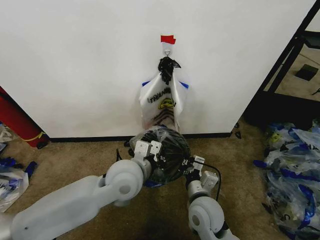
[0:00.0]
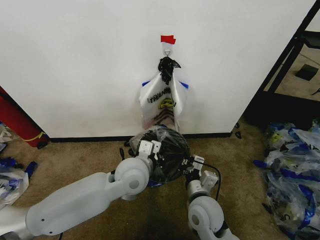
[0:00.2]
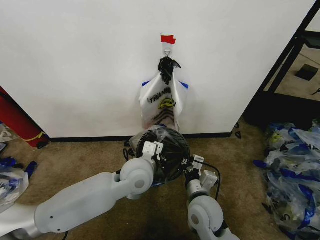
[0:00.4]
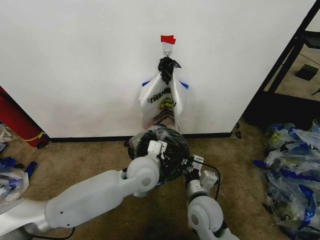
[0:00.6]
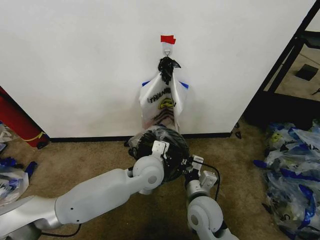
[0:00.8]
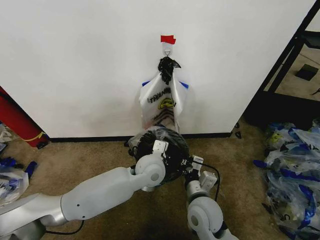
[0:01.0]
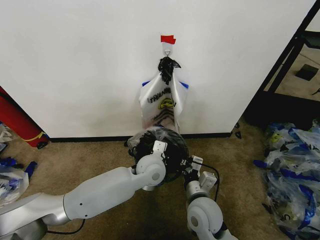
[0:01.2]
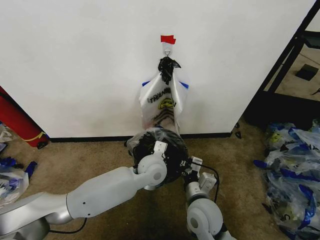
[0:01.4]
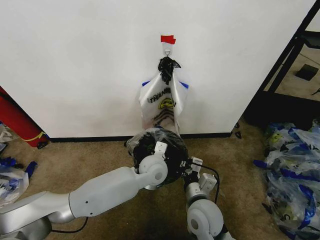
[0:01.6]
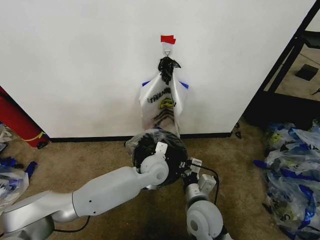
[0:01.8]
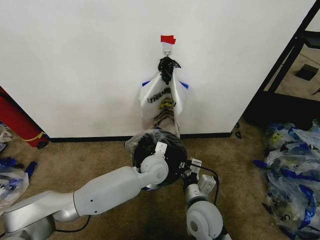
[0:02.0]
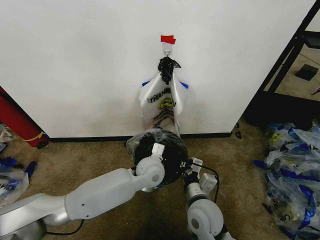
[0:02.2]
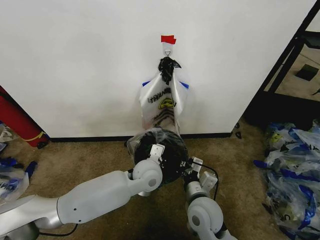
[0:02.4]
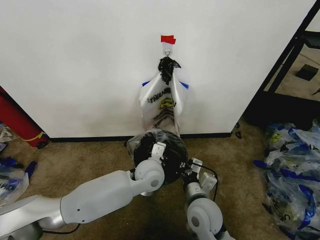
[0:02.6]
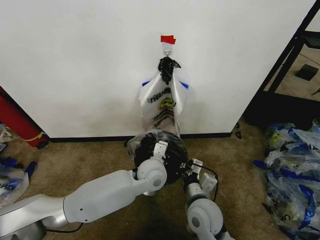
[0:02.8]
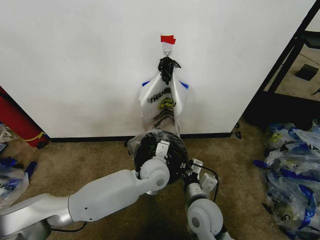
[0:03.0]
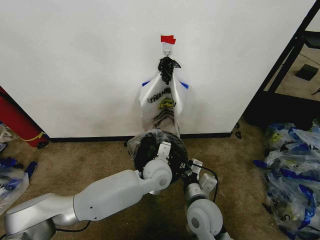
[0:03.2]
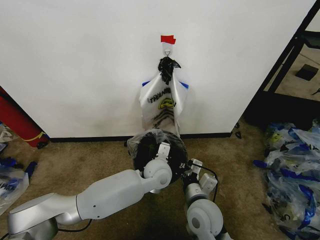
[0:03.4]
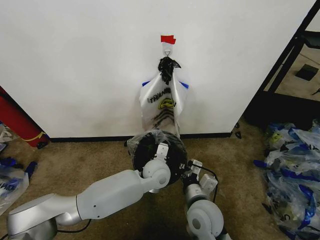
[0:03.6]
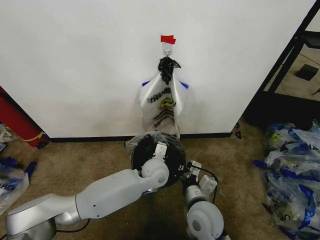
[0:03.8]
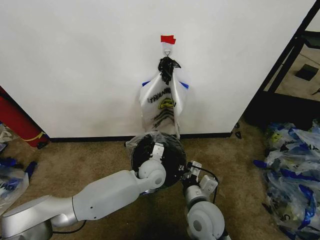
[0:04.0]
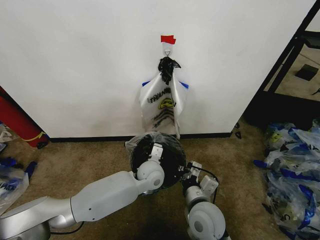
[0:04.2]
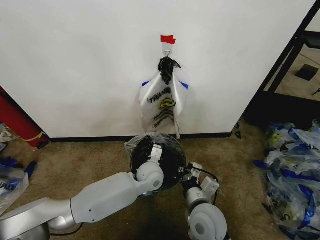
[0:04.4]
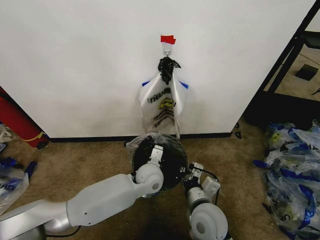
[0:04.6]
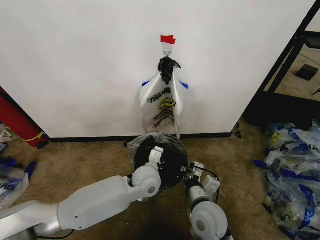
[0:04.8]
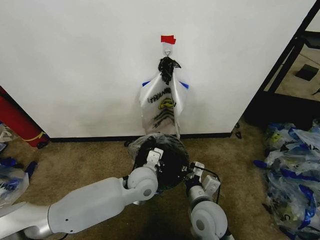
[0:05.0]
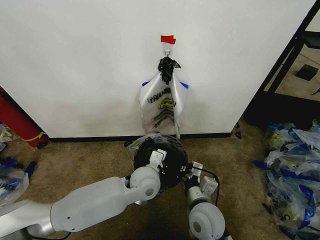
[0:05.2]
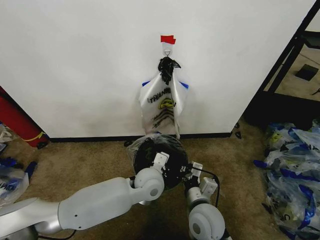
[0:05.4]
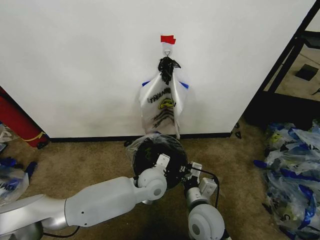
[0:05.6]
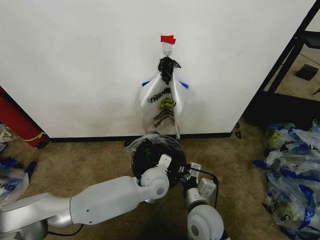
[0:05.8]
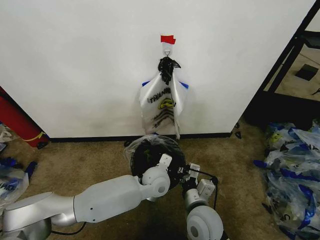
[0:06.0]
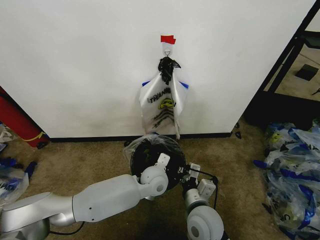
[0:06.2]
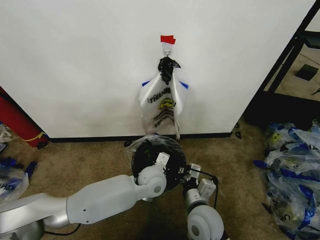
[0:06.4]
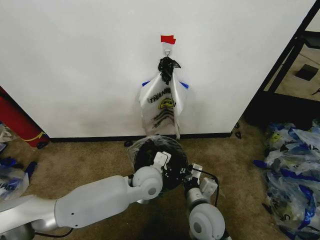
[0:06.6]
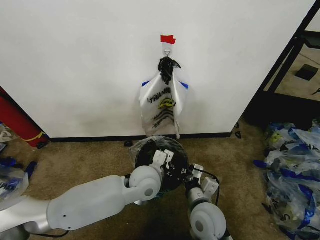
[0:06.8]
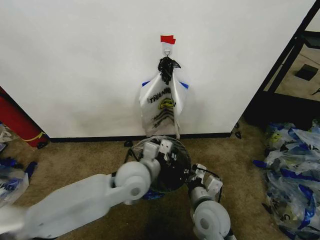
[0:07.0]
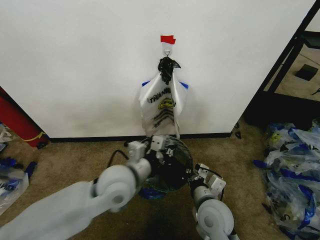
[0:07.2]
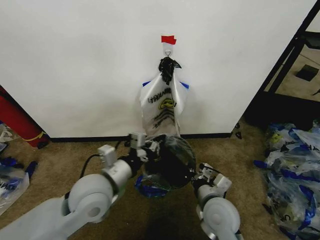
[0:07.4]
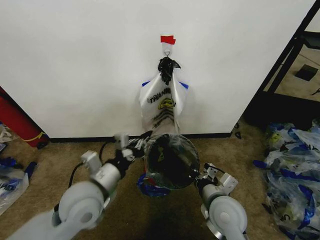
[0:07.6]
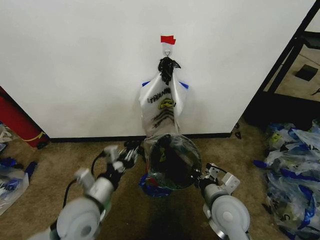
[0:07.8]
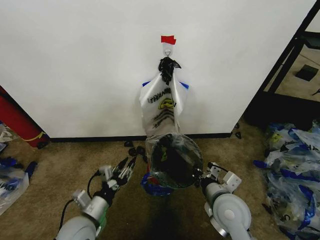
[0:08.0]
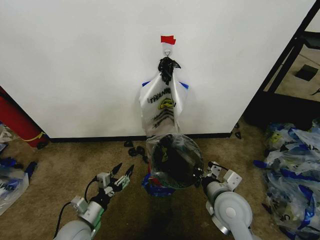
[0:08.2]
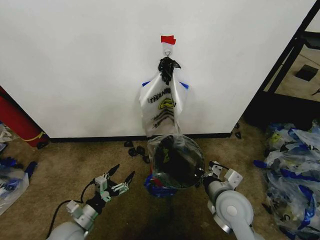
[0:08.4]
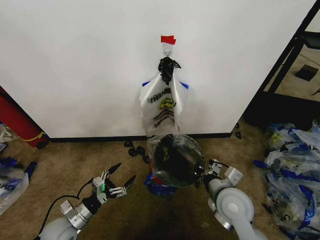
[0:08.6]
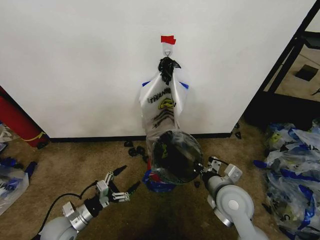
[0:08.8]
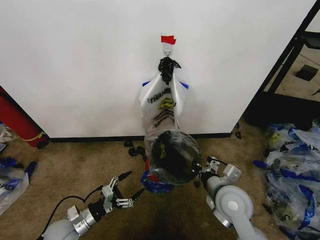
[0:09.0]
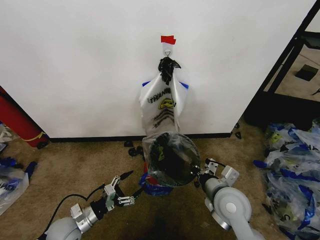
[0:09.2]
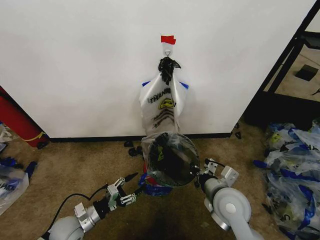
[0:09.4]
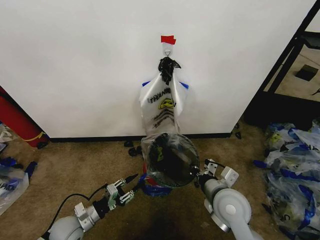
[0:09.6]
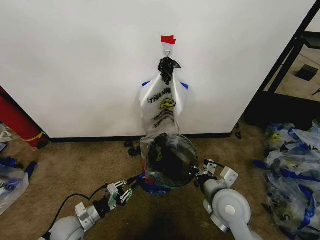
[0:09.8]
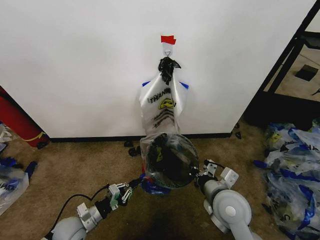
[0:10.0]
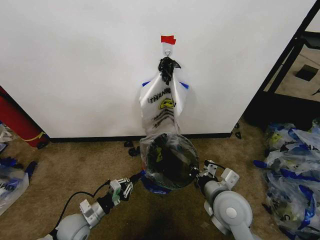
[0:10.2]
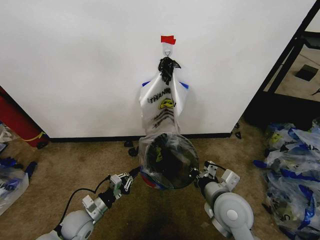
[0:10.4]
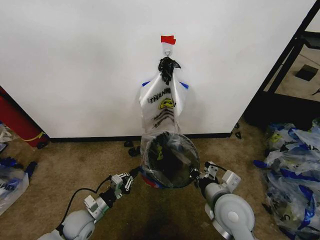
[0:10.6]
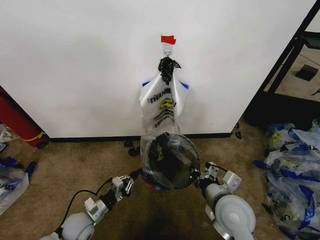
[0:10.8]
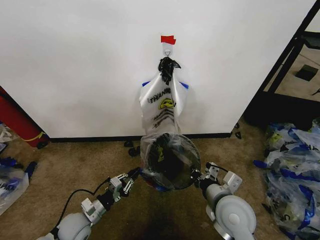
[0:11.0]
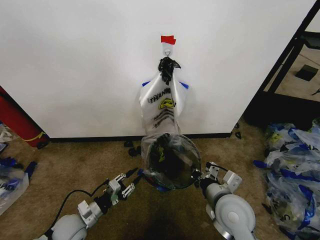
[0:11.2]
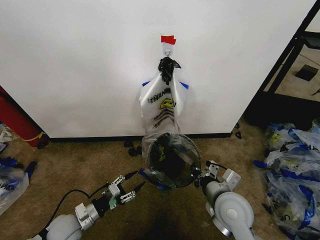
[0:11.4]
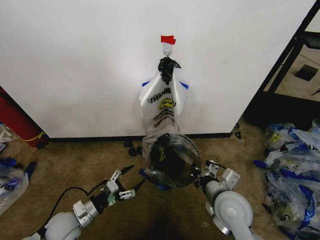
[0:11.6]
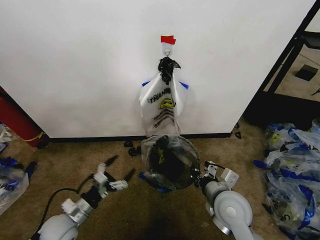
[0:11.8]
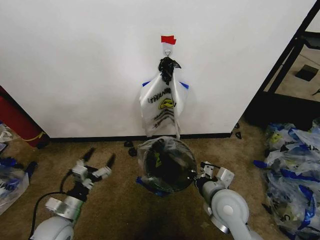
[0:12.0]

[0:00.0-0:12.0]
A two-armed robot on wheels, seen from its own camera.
Task of the whole recording: Pick up the garbage bag from the wall and place it over the trash bin.
0.0 to 1.6 s: The left gripper shifts about 15 cm downward, forward and to the right.
1.6 to 3.0 s: The grippers make only small movements.
3.0 to 4.4 s: The left gripper changes place by approximately 5 cm.
6.0 to 7.6 s: The right gripper goes roughly 5 cm to the right. Meanwhile the left gripper goes about 25 cm to the left, upward and backward.
7.6 to 9.0 s: The left gripper goes roughly 25 cm downward and to the left, and opens its fingers.
9.0 to 10.4 s: The left gripper closes up.
10.4 to 12.0 s: The left gripper travels upward by approximately 5 cm, and opens up.

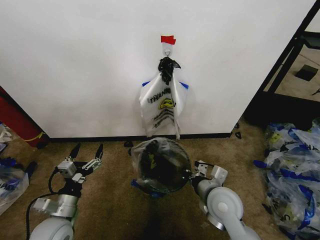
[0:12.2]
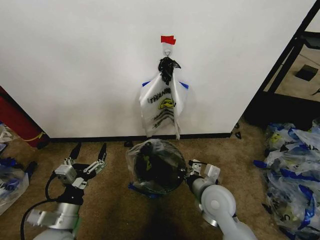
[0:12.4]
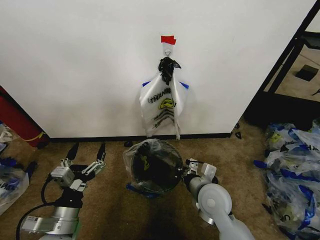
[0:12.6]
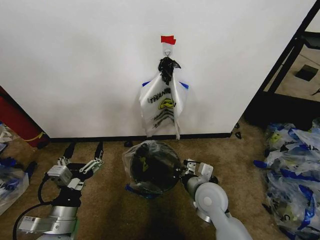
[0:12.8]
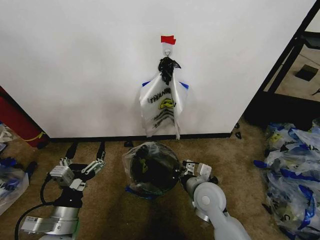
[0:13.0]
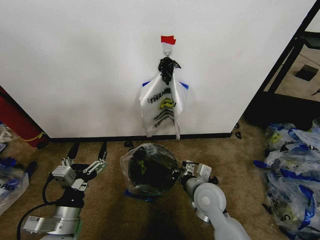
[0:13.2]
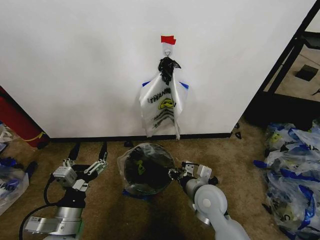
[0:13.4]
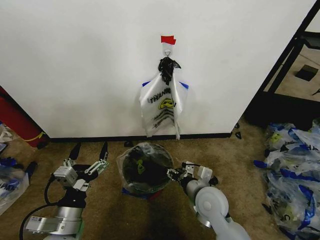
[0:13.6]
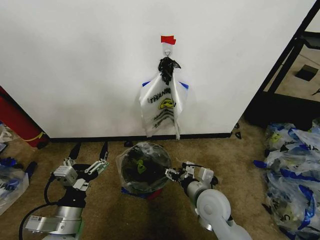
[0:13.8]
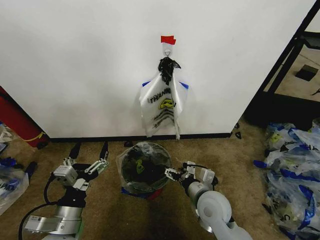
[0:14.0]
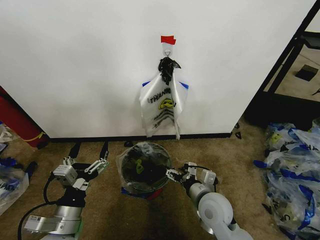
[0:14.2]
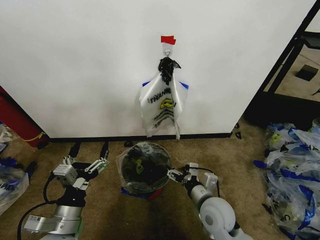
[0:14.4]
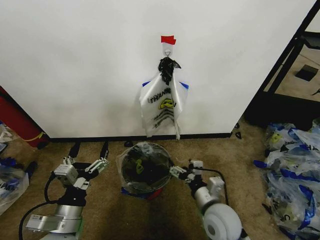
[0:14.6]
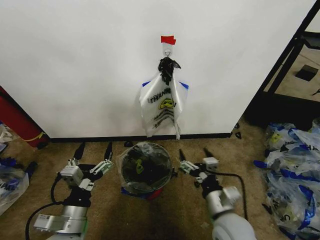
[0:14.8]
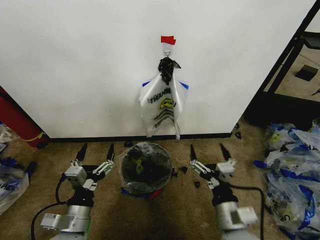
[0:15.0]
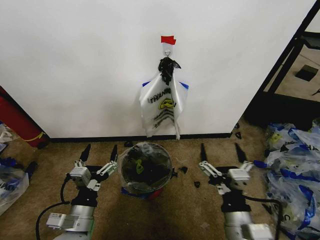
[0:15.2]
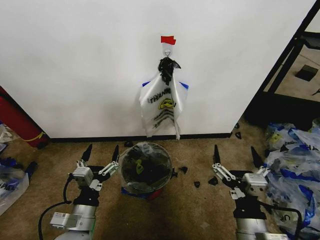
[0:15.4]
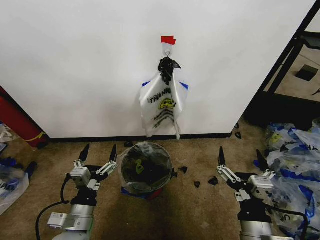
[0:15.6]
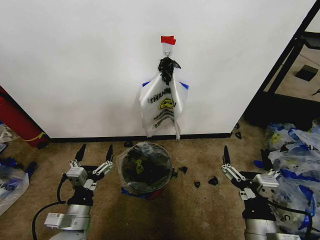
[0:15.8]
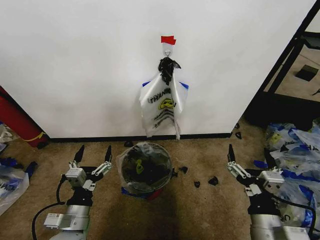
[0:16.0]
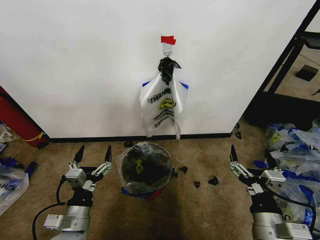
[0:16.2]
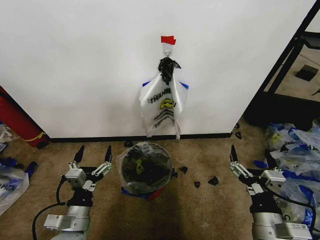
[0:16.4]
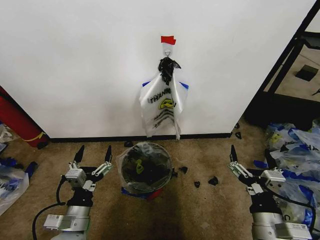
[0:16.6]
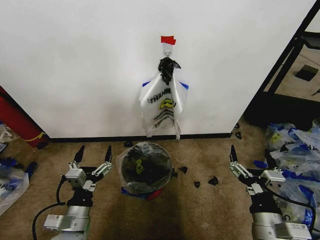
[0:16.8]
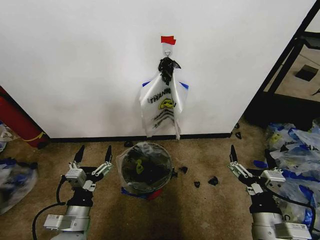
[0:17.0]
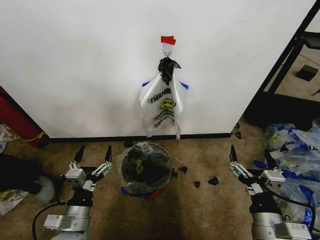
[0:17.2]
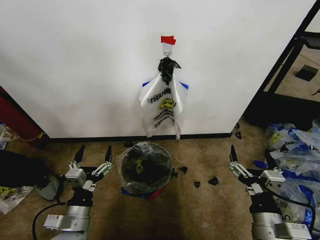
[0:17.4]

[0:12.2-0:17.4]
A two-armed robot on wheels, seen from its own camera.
Task of the whole recording: Pick up the garbage bag from the wall and place it over the trash bin.
12.2 to 14.0 s: The right gripper opens. The left gripper shifts some 10 cm upward, to the right and backward.
14.0 to 15.6 s: The right gripper goes roughly 15 cm backward.
15.6 to 17.4 s: There are only small adjustments of the grippers.

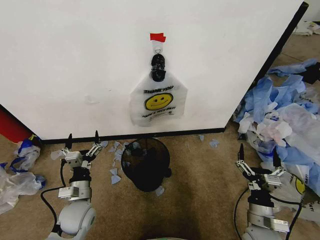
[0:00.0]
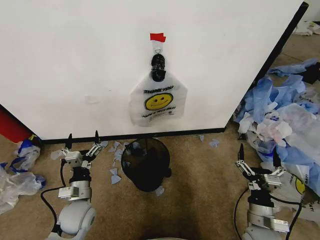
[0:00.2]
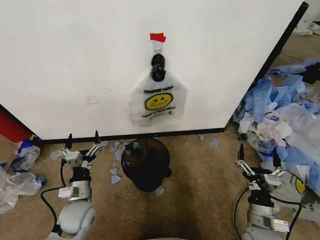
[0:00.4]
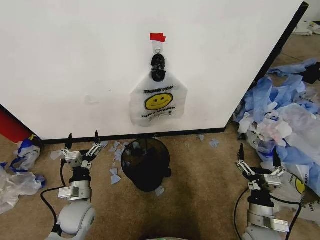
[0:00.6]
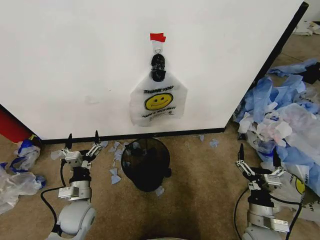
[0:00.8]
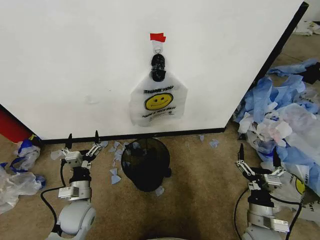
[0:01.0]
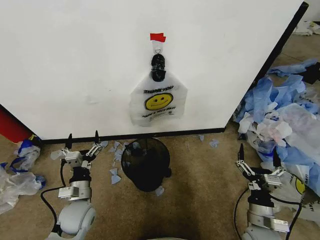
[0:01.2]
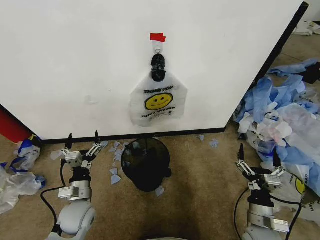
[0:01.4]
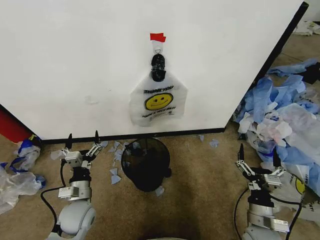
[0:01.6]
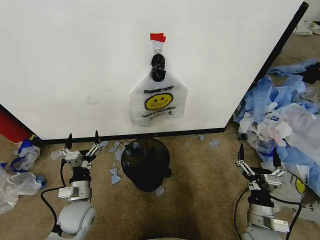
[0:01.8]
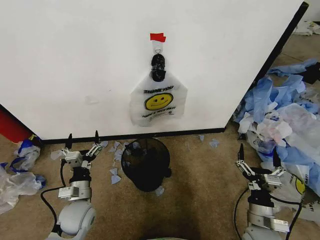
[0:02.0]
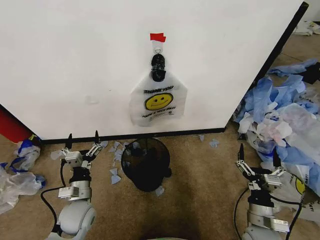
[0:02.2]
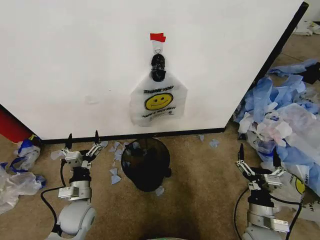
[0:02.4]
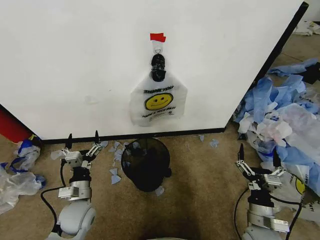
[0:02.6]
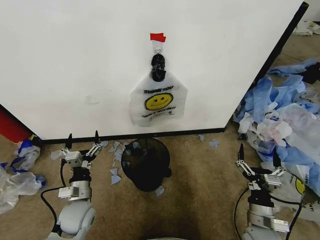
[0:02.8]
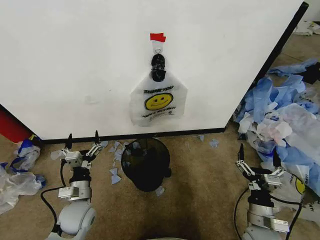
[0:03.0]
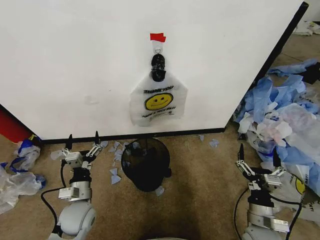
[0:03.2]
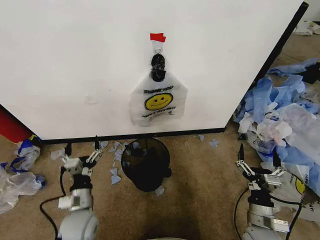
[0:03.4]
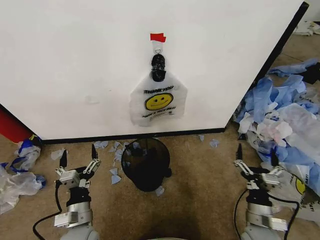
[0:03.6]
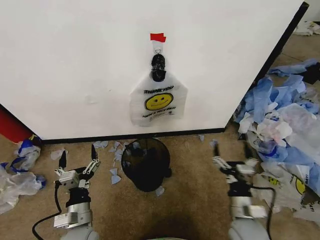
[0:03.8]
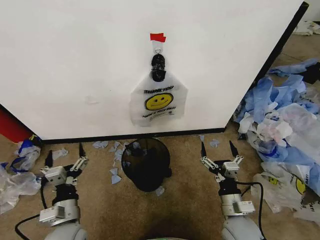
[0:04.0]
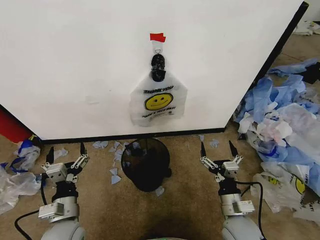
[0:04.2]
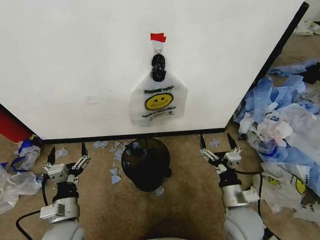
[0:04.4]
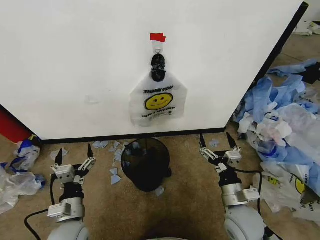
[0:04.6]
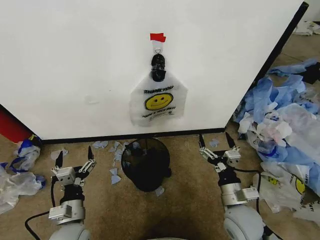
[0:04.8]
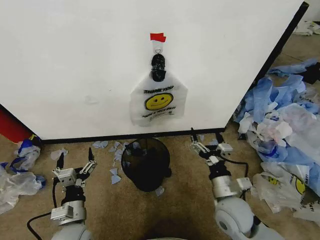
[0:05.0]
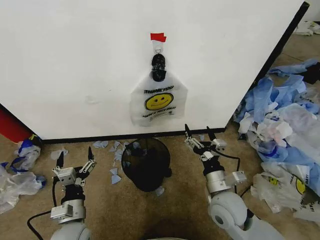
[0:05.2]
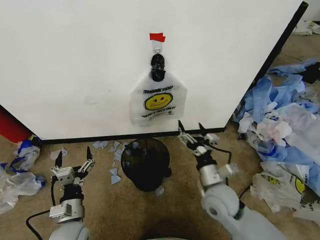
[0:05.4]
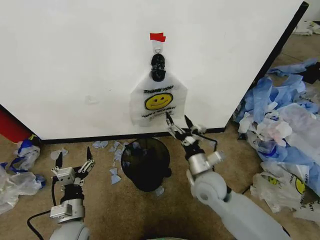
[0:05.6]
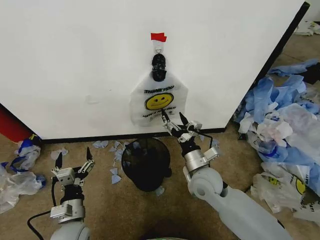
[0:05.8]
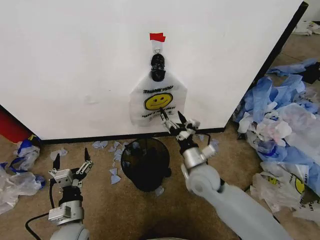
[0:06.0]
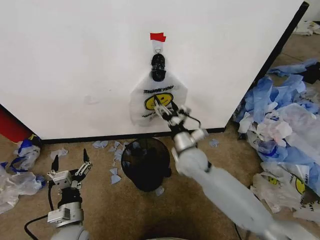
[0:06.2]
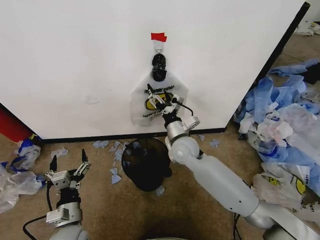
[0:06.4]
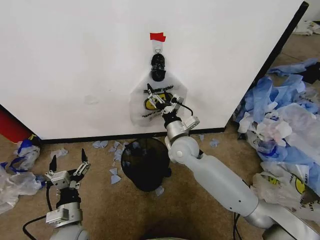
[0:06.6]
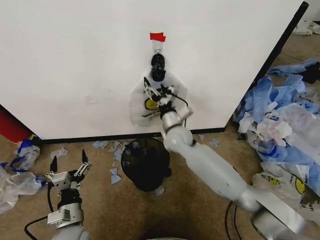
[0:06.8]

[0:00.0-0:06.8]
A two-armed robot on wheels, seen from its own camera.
Task of the whole recording: Pick up the garbage bag from the wall and place it over the trash bin.
1.4 to 2.8 s: Neither gripper changes place.
2.8 to 4.0 s: The left gripper shifts some 5 cm backward. The right gripper goes about 5 cm to the left.
4.0 to 5.4 s: The right gripper moves forward, upward and to the left, approximately 10 cm.
5.4 to 6.8 s: The right gripper travels forward and to the left by about 20 cm.
